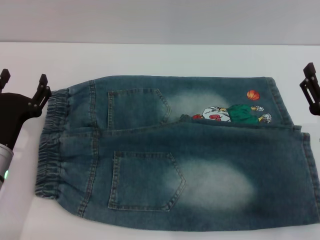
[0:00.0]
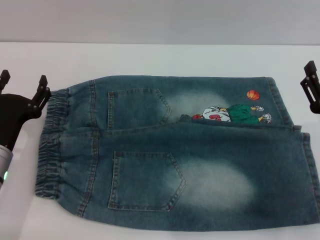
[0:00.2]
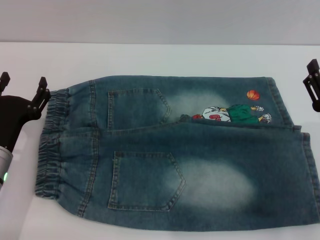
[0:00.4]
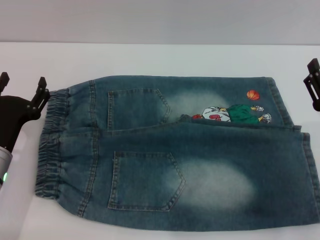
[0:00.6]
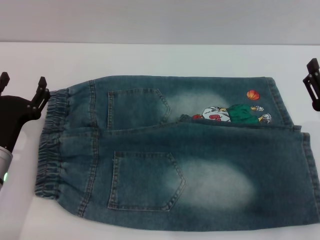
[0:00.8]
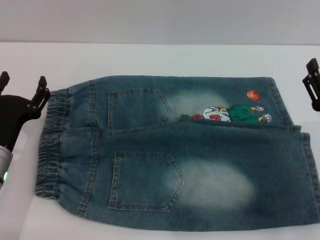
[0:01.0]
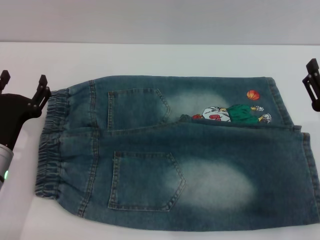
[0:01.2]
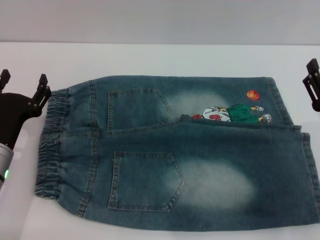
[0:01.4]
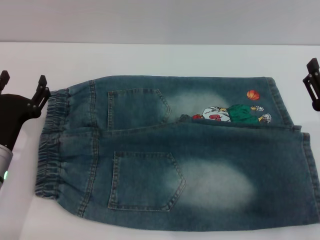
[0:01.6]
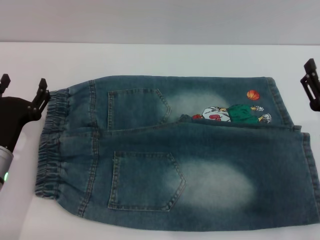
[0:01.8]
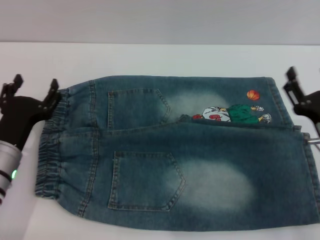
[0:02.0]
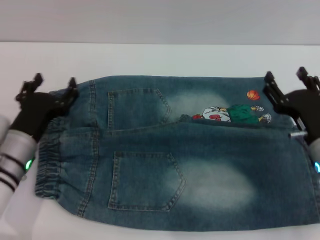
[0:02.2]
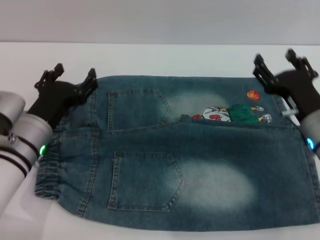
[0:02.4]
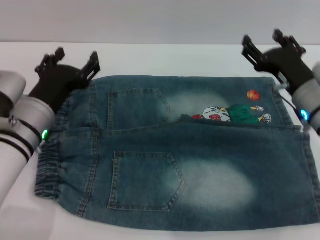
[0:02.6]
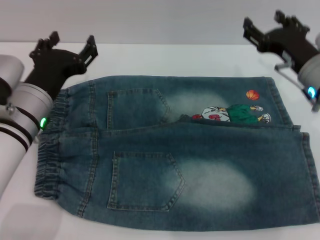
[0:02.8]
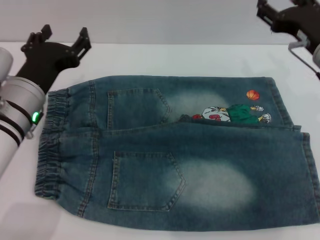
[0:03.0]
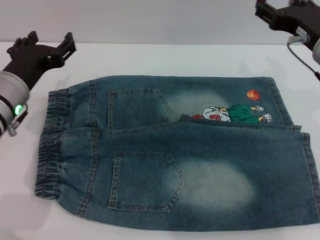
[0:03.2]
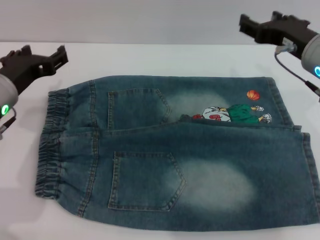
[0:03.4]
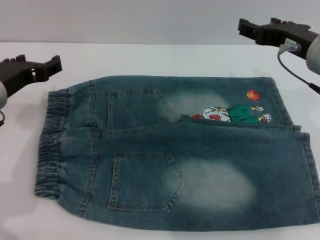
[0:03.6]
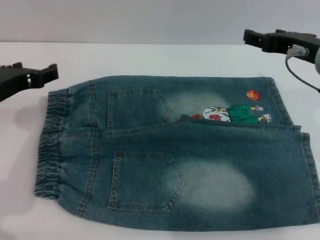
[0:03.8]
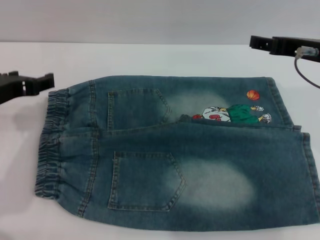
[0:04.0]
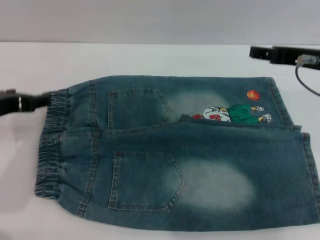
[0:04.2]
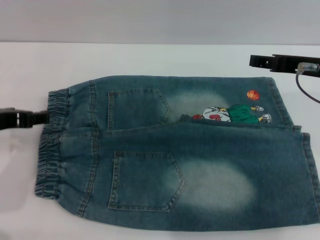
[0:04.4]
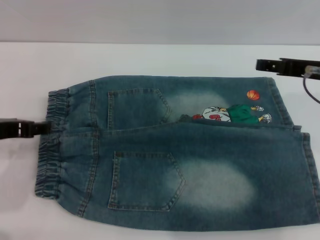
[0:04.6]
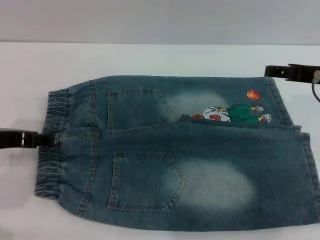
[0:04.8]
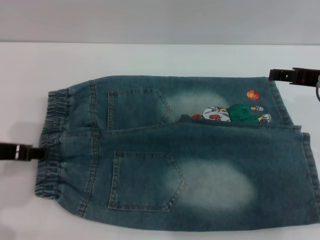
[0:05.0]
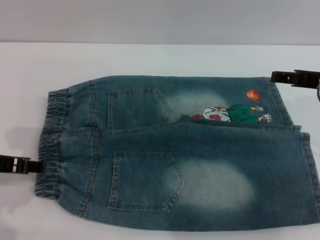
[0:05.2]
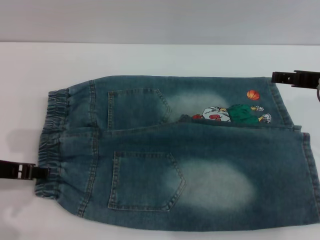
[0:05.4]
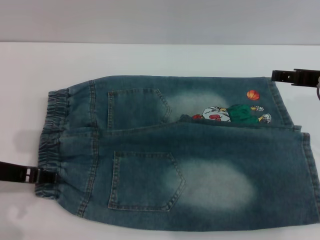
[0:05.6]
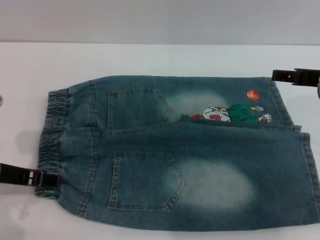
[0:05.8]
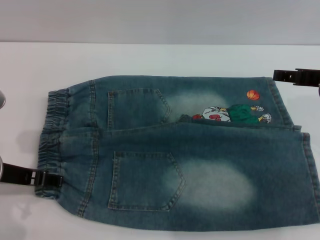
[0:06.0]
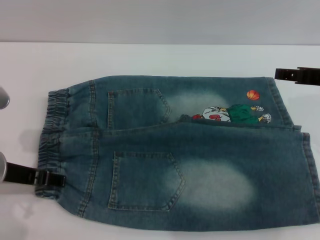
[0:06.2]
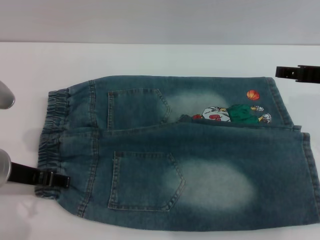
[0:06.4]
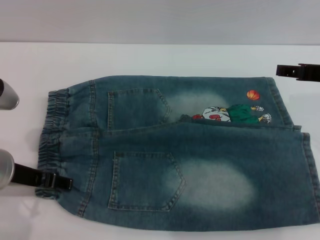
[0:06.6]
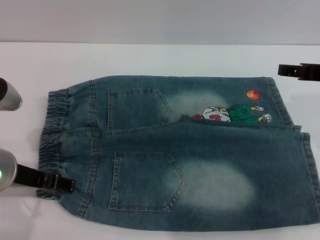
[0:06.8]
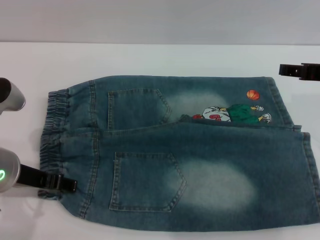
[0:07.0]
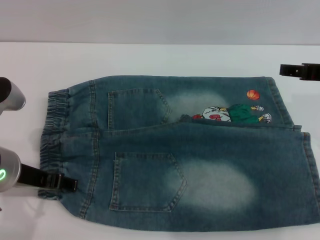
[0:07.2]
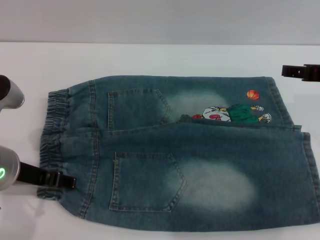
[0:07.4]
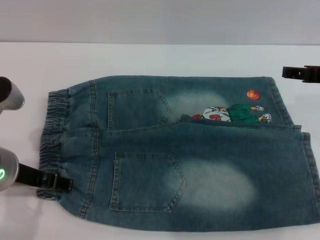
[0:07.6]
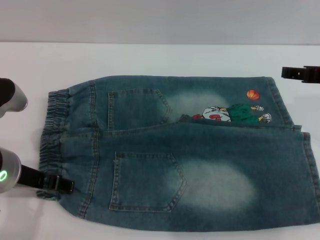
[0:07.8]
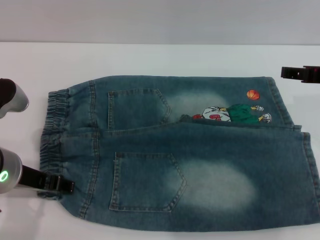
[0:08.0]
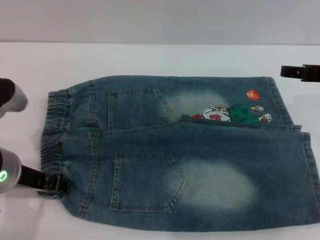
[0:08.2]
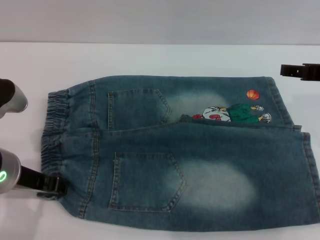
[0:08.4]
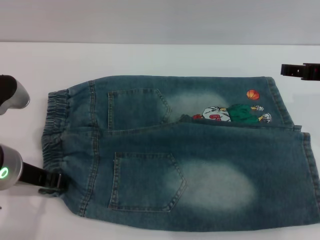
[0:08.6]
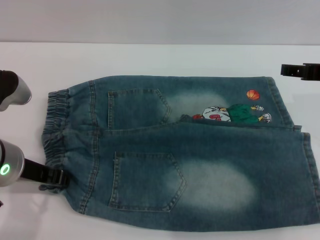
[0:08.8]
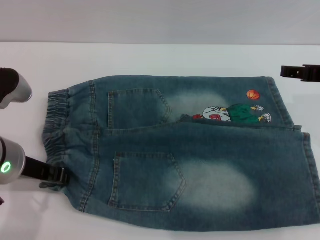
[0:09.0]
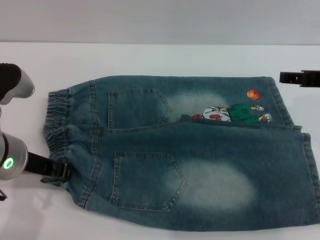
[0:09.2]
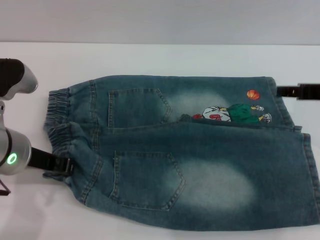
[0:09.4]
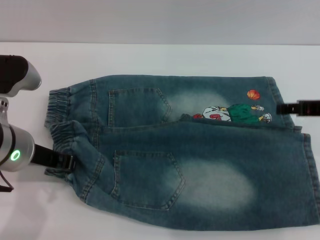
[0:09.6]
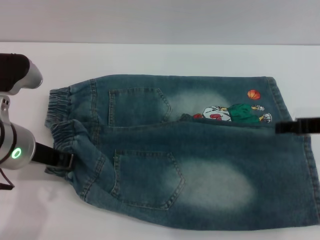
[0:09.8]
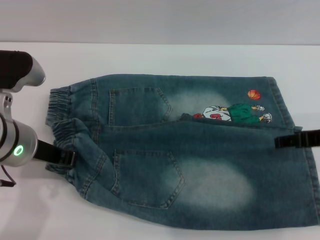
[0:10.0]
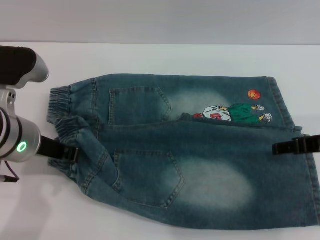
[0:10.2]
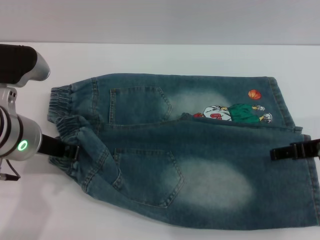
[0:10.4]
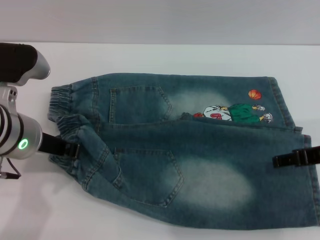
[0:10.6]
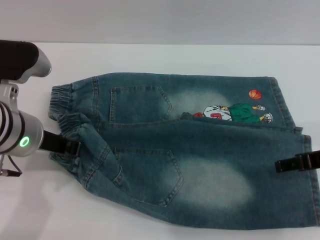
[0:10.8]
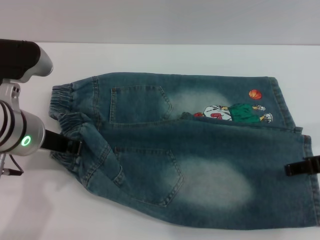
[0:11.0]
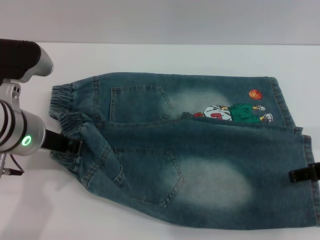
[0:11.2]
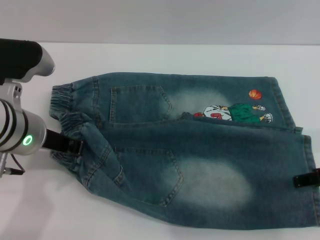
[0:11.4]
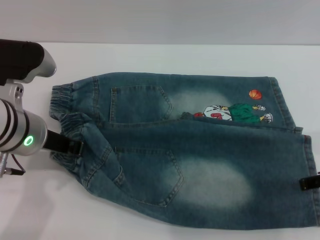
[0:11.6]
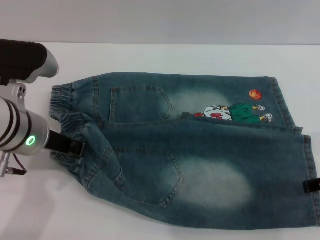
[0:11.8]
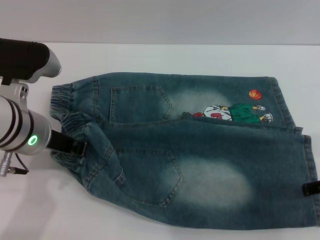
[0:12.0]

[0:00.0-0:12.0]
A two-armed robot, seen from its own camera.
0:00.0 to 0:01.6: Both grippers stay about where they are.
0:01.6 to 0:03.0: The left gripper heads upward and to the right, covering approximately 10 cm. The right gripper goes about 15 cm forward and upward.
0:03.0 to 0:04.4: The left gripper heads to the left, covering roughly 5 cm; the right gripper moves some 5 cm.
0:06.0 to 0:07.6: There are only small adjustments of the grippers.
0:07.6 to 0:09.0: The left gripper closes up.
0:09.0 to 0:10.4: The right gripper moves some 5 cm.
0:10.4 to 0:12.0: The grippers move only a little.

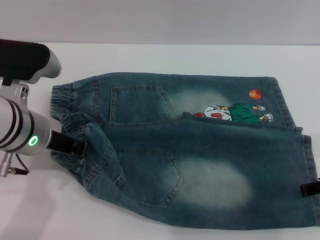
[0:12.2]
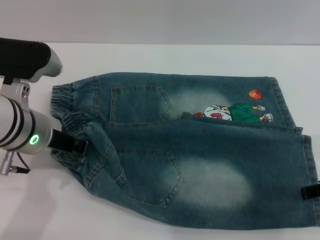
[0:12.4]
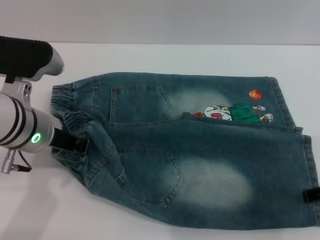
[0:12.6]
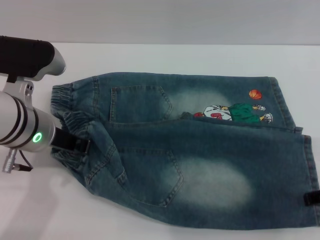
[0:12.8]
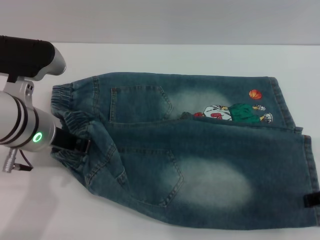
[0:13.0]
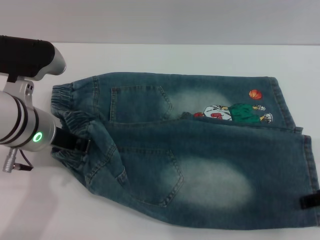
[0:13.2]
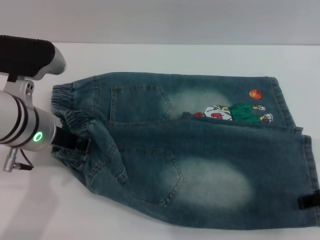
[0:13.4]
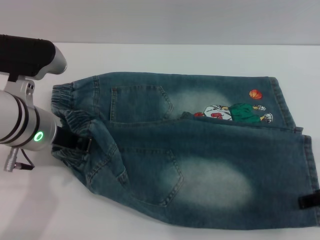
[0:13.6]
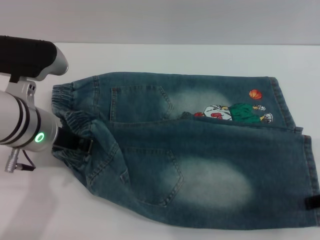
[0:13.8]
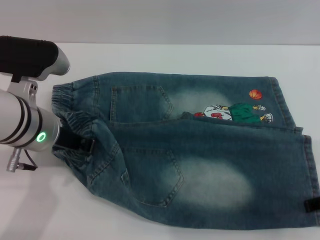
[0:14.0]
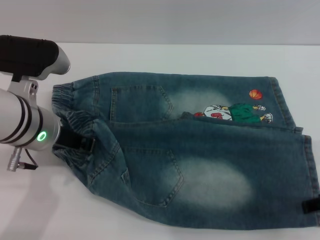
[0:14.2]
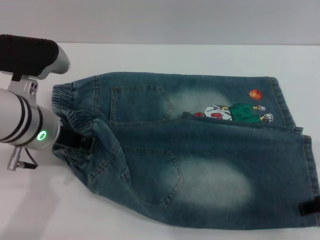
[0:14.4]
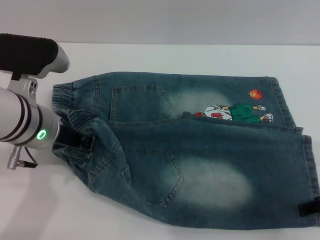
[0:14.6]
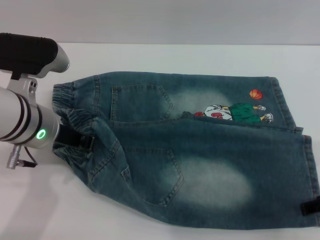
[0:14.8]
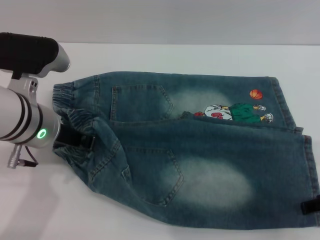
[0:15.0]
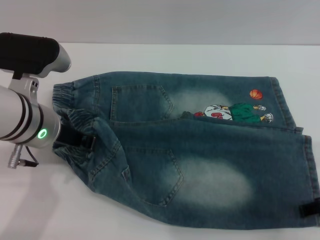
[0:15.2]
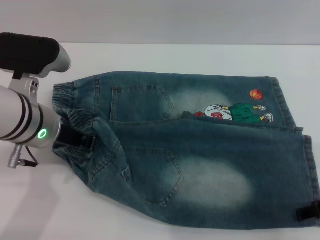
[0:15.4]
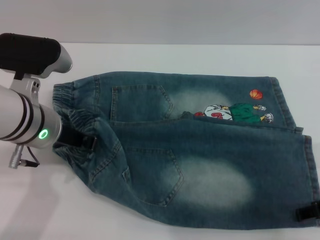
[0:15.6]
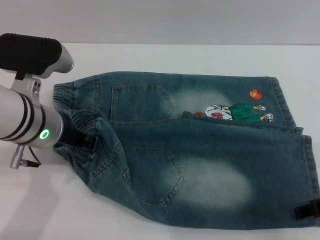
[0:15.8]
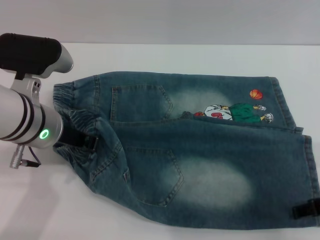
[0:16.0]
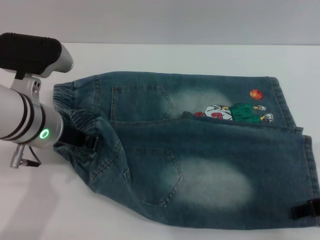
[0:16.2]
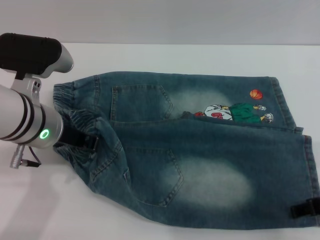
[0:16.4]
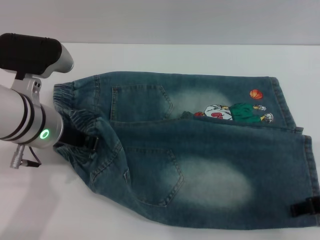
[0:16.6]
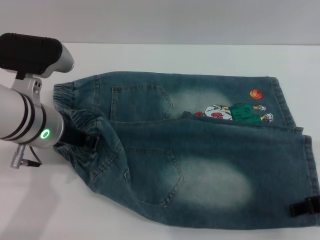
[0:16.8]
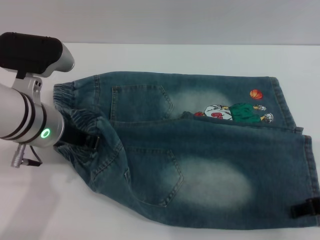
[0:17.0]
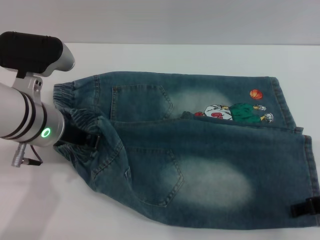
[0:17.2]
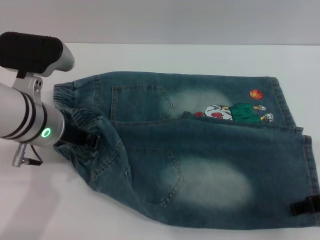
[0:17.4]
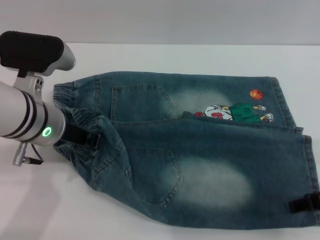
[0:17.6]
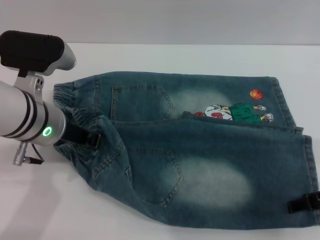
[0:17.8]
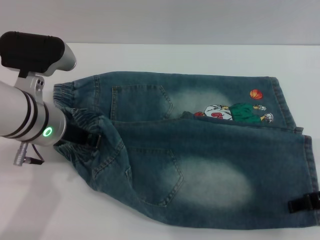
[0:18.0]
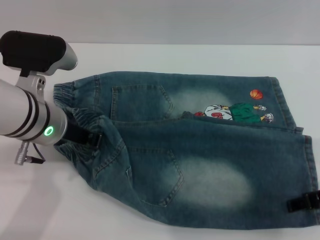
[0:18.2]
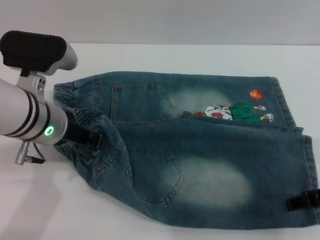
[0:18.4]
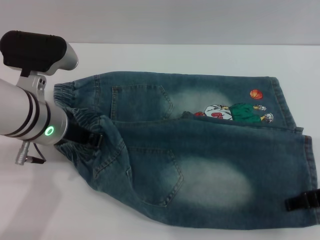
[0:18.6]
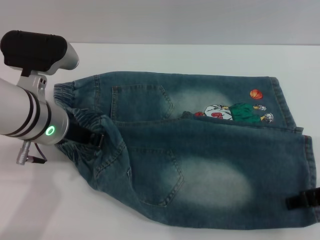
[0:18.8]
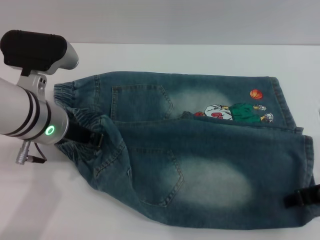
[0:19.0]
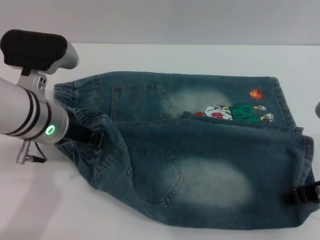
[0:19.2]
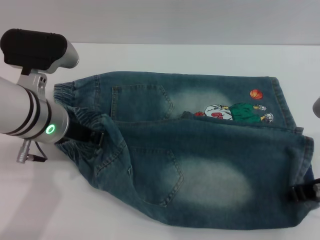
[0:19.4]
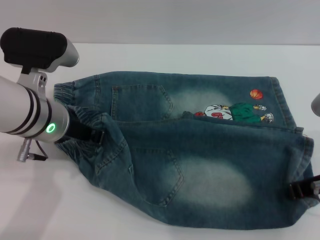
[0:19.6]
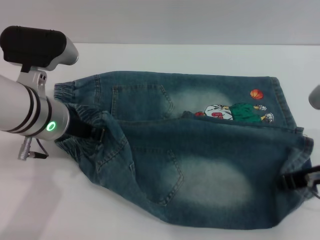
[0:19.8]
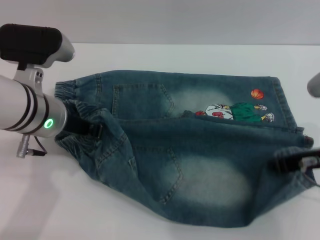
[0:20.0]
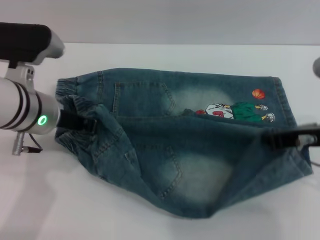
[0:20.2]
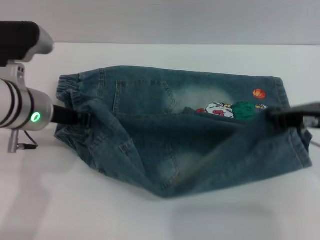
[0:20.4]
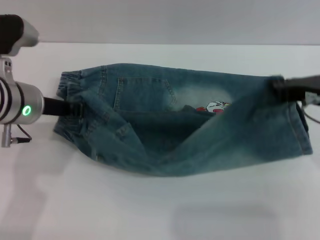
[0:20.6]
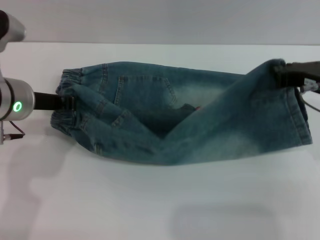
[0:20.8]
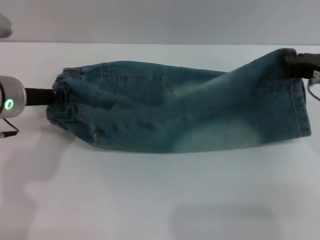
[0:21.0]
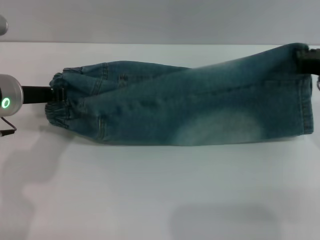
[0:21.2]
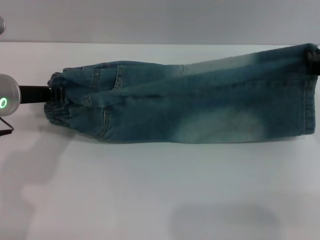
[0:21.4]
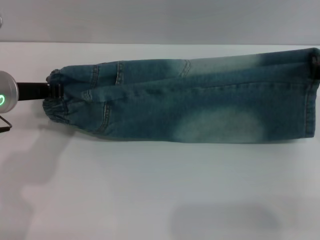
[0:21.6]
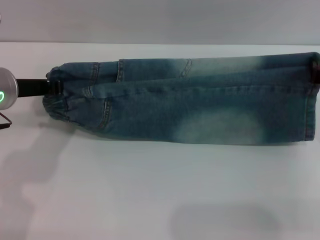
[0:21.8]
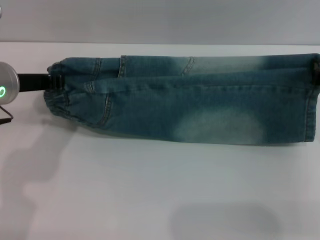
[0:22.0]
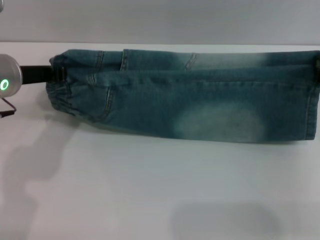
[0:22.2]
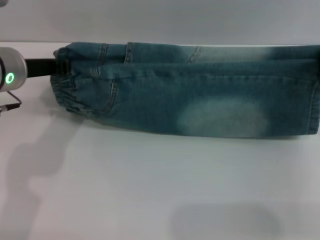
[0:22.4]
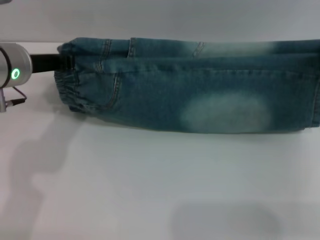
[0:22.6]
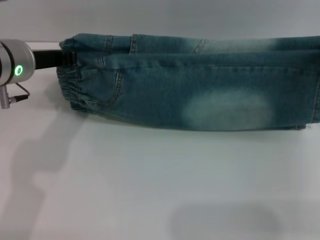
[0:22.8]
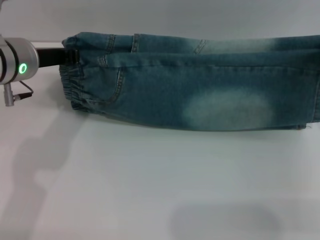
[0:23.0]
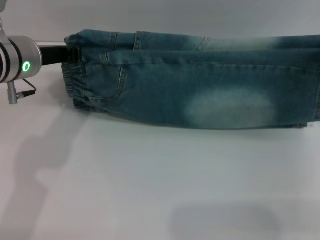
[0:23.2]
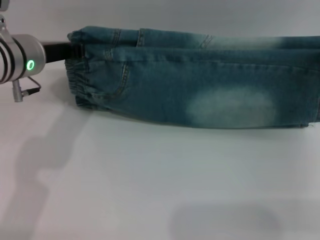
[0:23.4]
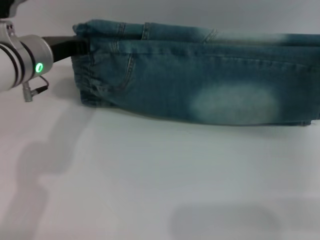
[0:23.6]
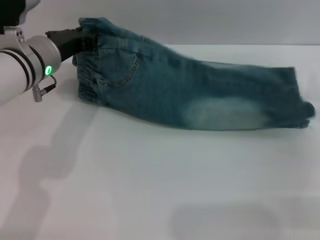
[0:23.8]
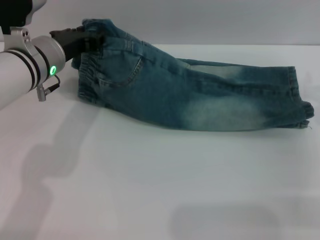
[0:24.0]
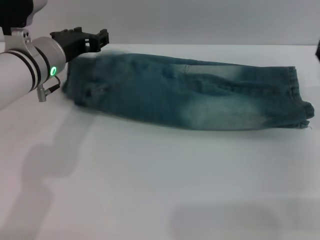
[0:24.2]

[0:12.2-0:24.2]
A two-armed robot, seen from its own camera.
0:12.2 to 0:13.8: The two grippers keep their place.
0:13.8 to 0:15.2: Both grippers stay put.
0:15.2 to 0:18.2: Both grippers stay put.
0:18.2 to 0:19.8: The right gripper closes.
0:19.8 to 0:21.2: The left gripper goes about 5 cm to the left; the right gripper goes some 5 cm forward.
0:22.6 to 0:24.2: The left gripper moves about 5 cm. The right gripper opens.
